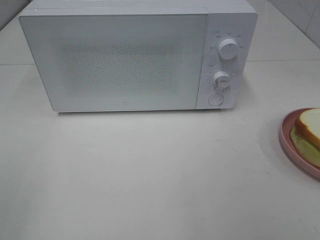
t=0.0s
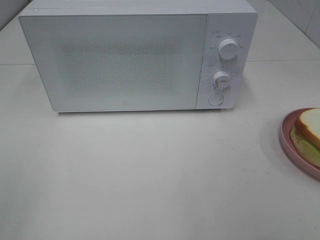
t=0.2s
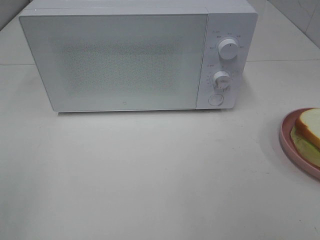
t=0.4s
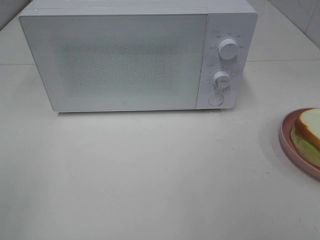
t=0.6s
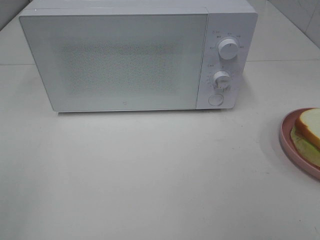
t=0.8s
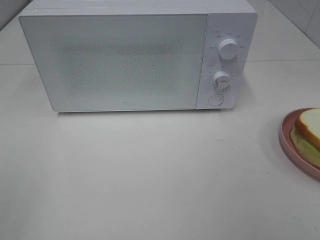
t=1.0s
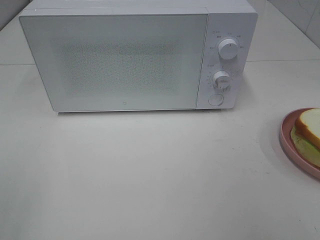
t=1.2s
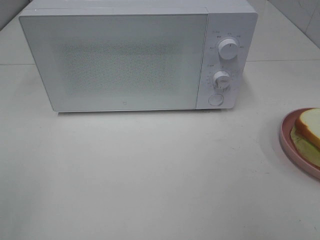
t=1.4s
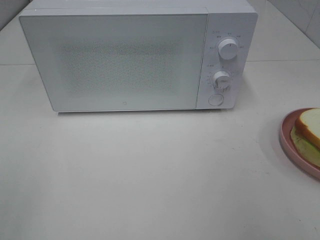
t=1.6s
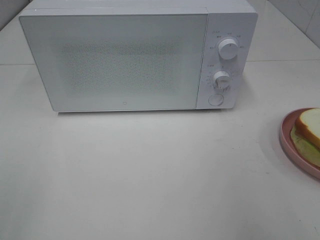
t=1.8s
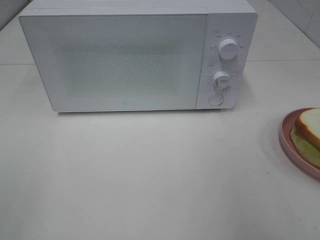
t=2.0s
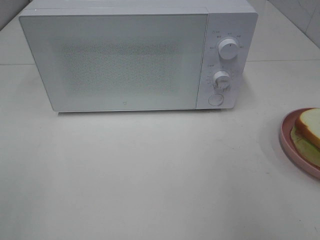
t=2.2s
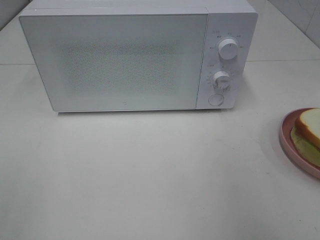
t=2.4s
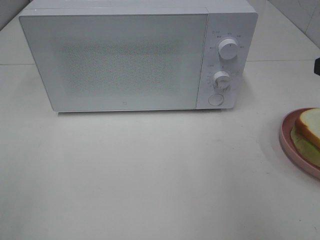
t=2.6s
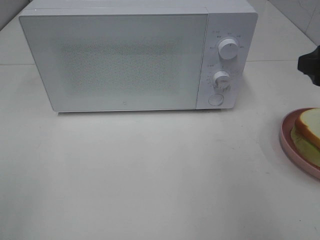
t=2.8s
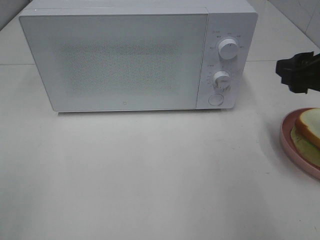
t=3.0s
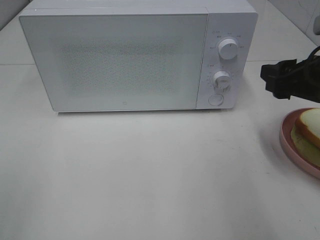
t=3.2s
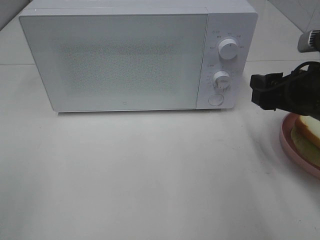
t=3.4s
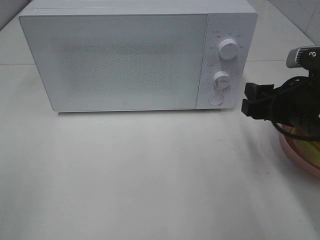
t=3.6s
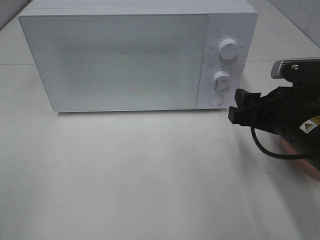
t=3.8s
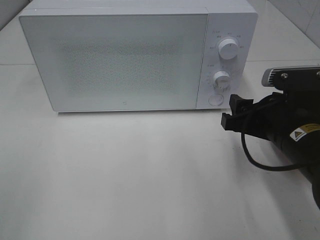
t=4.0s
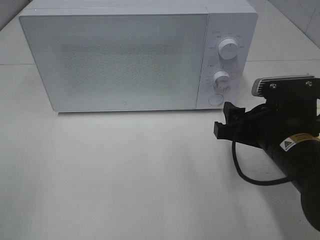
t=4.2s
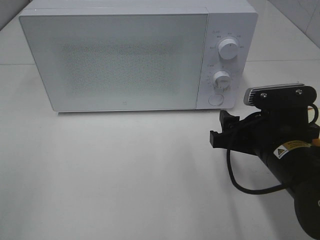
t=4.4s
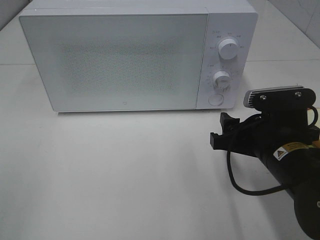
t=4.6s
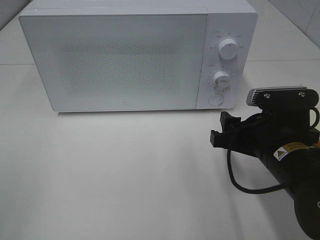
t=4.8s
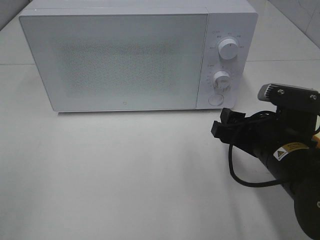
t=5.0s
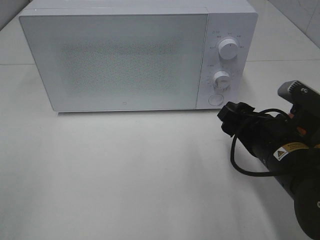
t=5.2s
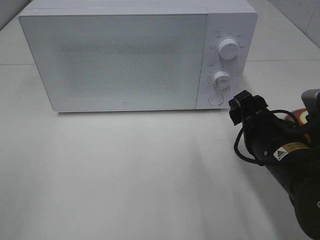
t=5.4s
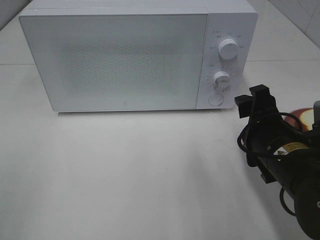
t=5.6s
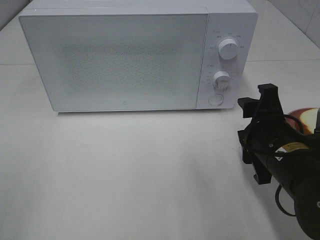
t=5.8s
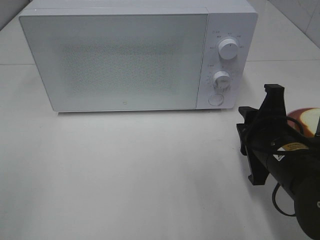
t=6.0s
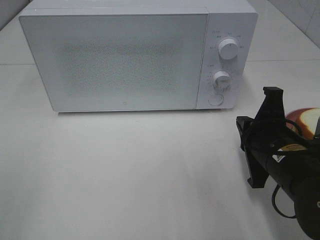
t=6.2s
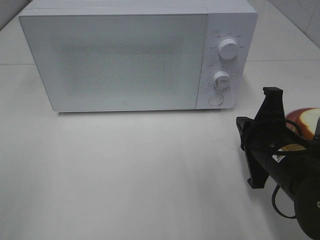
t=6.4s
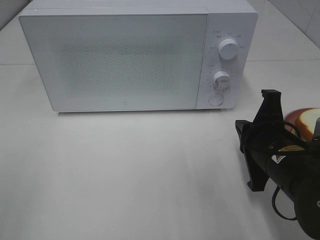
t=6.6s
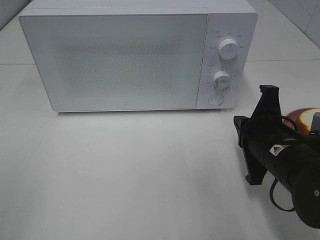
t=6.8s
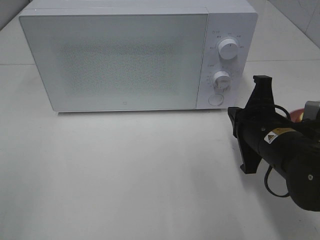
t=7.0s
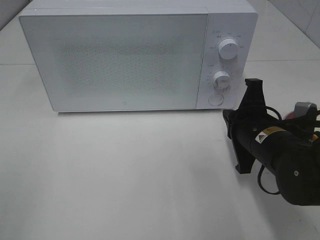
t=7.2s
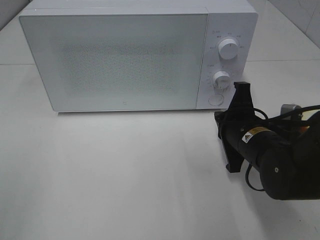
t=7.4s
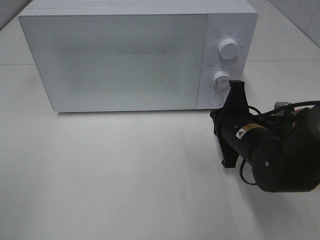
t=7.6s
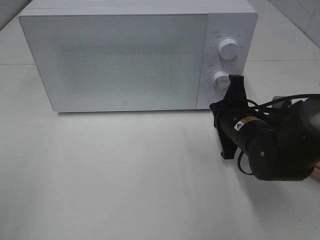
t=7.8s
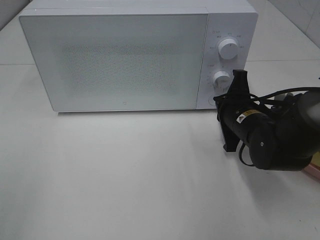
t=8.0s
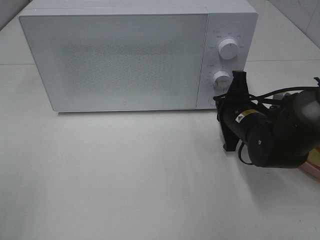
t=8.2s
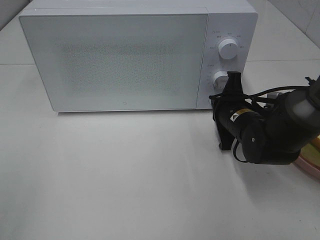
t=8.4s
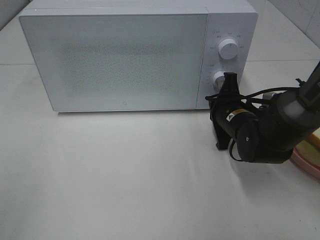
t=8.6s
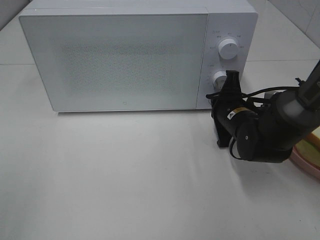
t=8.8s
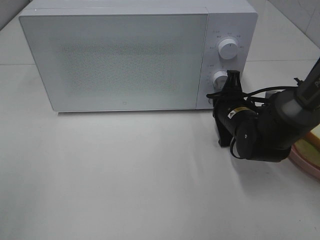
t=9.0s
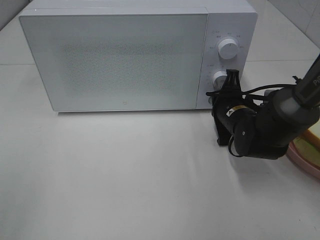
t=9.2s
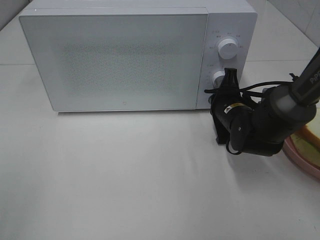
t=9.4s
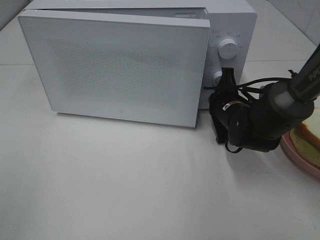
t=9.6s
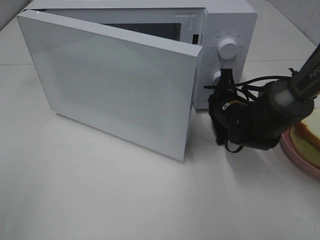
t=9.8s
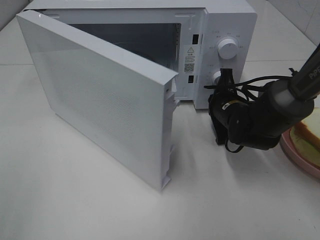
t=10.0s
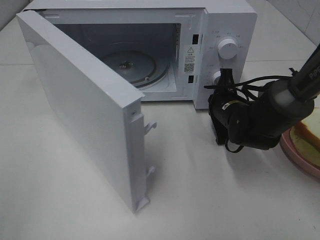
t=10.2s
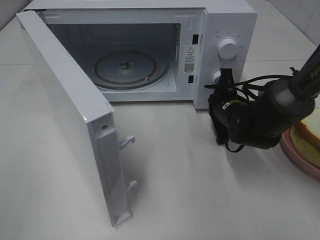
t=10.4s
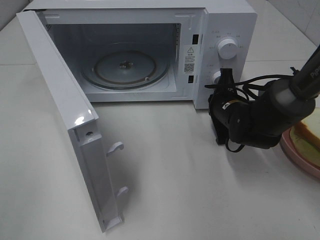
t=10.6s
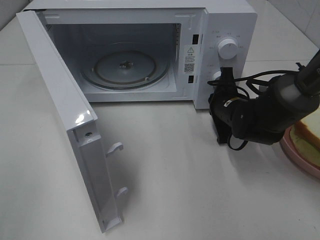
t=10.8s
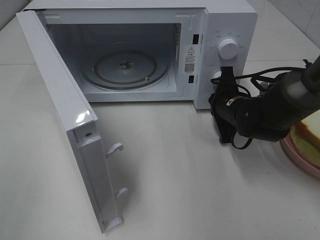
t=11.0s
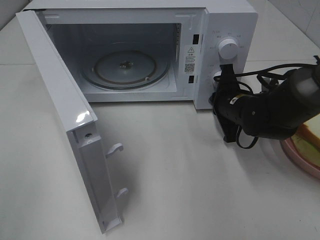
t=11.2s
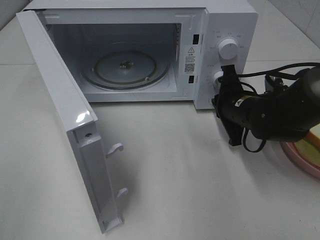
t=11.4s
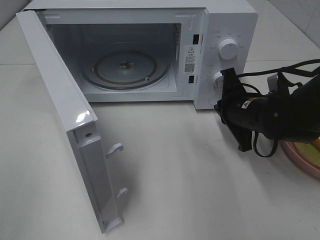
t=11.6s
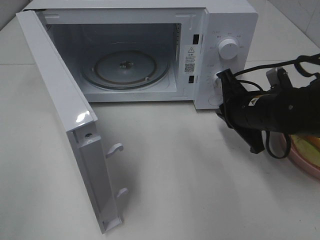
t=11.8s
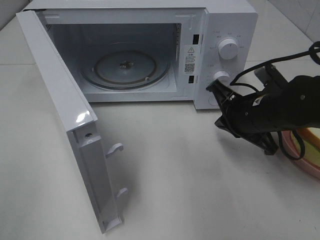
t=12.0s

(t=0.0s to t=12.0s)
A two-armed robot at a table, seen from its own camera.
Task of the whole recording: Heat Sandwich.
Step, t=0.0s - t=11.4s: Right hand: press the switch.
t=1.6s - t=3.0s: The right gripper goes roughly 15 cm forward and downward.
t=3.0s - t=4.4s: The right gripper travels downward and to the left by roughly 15 cm.
t=4.4s - t=6.0s: The right gripper closes.
t=6.0s - t=7.6s: The right gripper travels forward by approximately 5 cm.
t=7.6s - t=9.0s: The right gripper goes about 5 cm forward.
t=10.4s - t=12.0s: The right gripper shifts some 10 cm backward and upward.

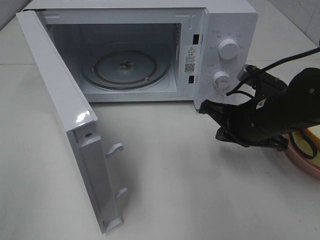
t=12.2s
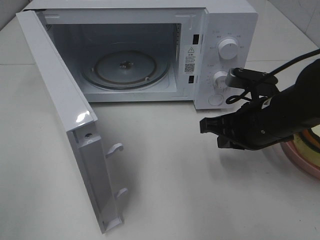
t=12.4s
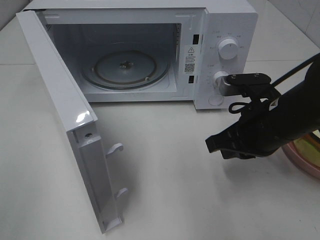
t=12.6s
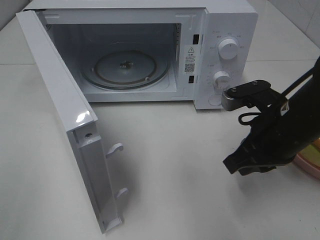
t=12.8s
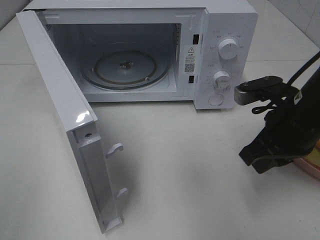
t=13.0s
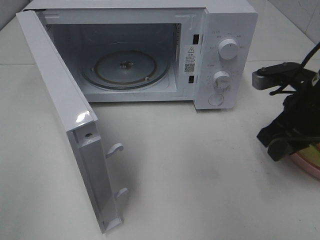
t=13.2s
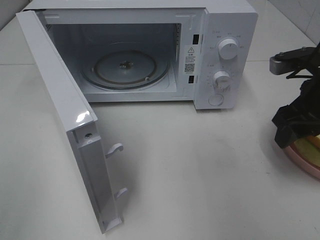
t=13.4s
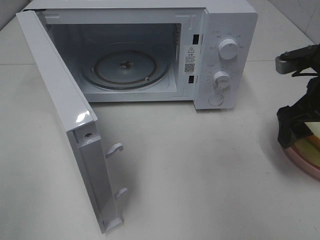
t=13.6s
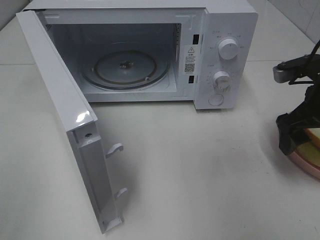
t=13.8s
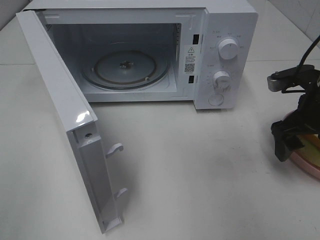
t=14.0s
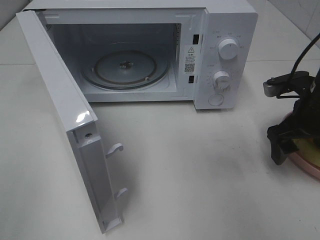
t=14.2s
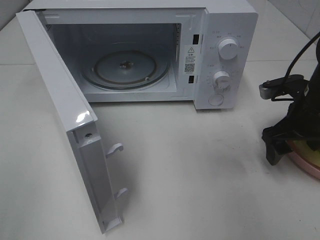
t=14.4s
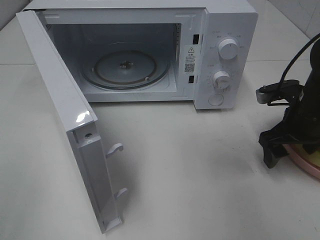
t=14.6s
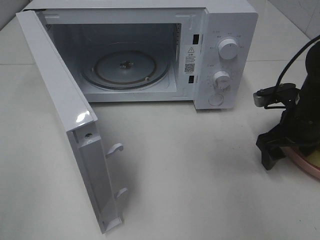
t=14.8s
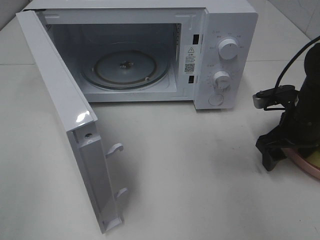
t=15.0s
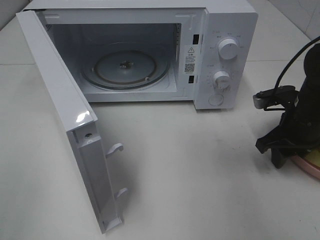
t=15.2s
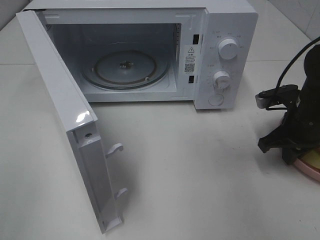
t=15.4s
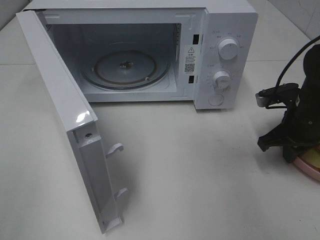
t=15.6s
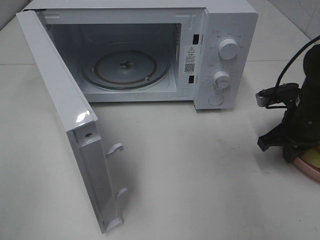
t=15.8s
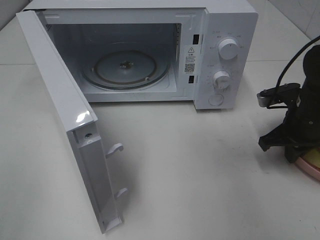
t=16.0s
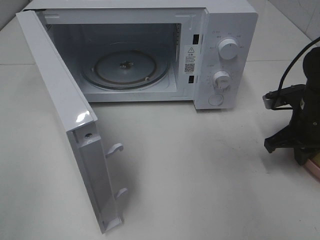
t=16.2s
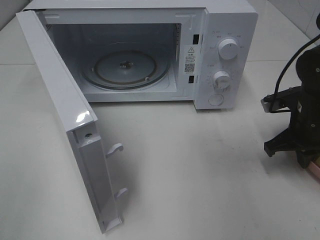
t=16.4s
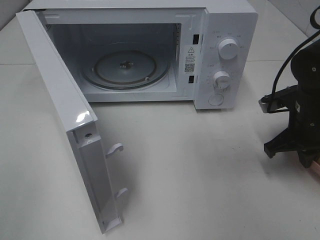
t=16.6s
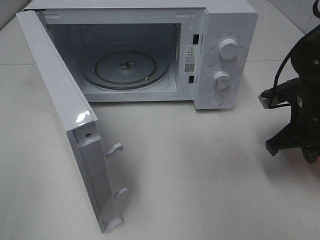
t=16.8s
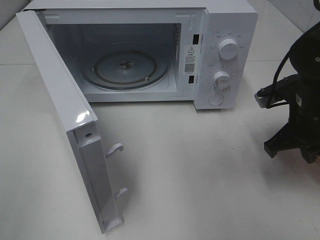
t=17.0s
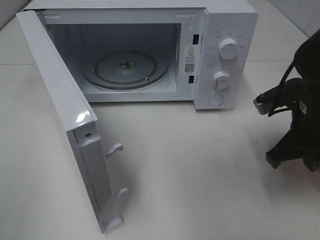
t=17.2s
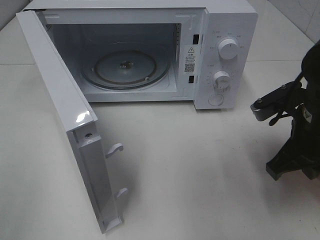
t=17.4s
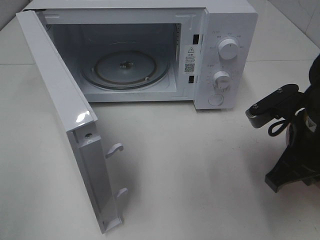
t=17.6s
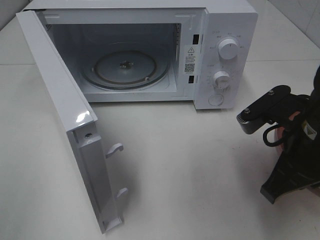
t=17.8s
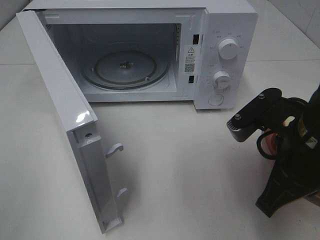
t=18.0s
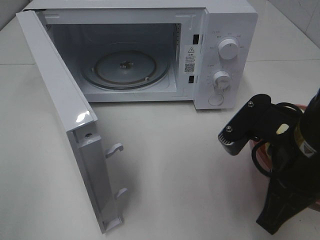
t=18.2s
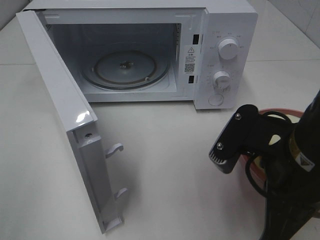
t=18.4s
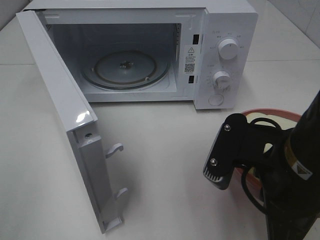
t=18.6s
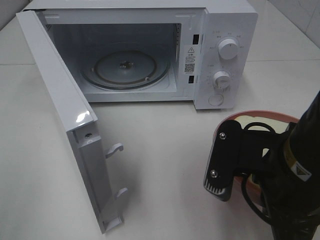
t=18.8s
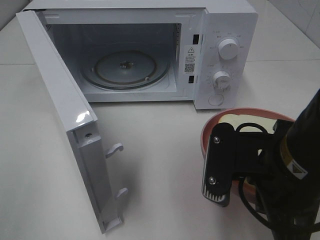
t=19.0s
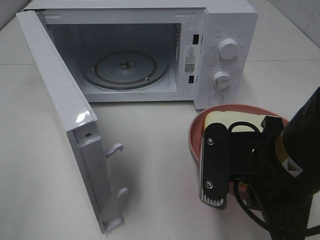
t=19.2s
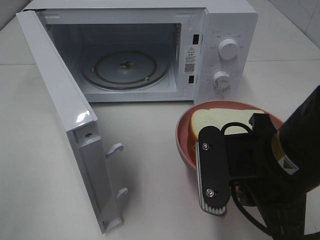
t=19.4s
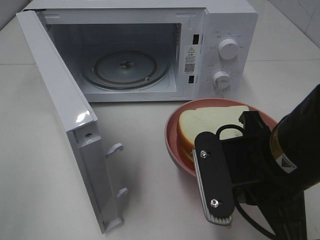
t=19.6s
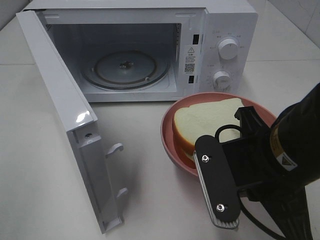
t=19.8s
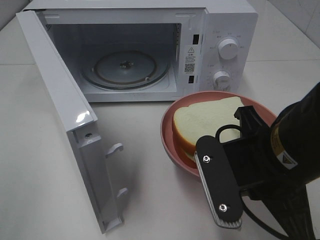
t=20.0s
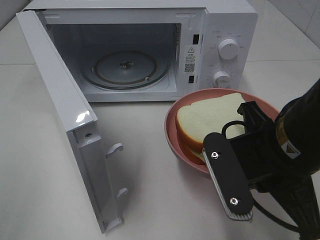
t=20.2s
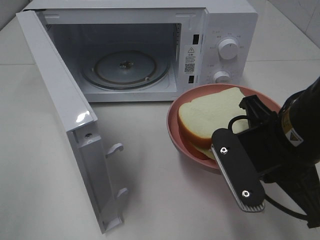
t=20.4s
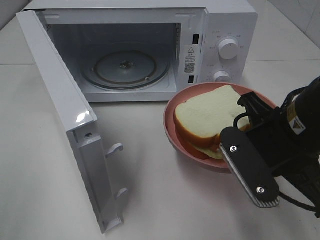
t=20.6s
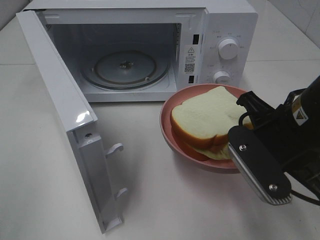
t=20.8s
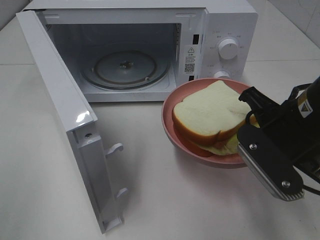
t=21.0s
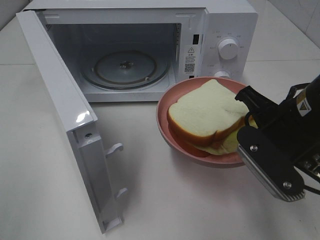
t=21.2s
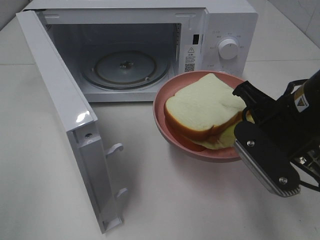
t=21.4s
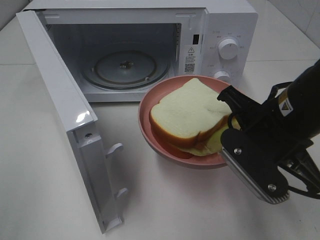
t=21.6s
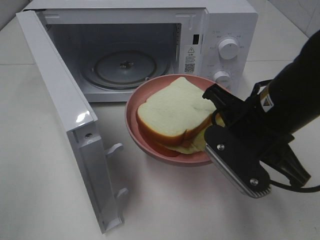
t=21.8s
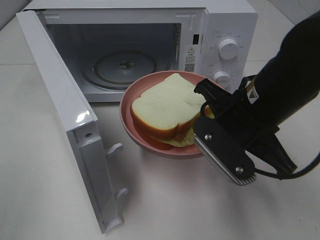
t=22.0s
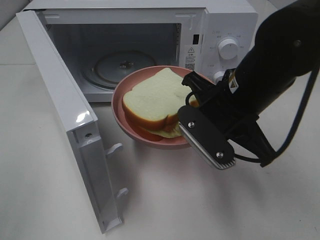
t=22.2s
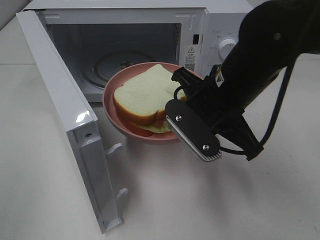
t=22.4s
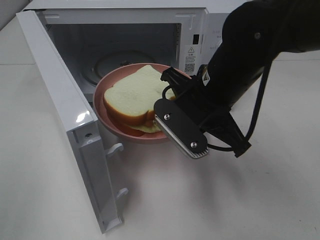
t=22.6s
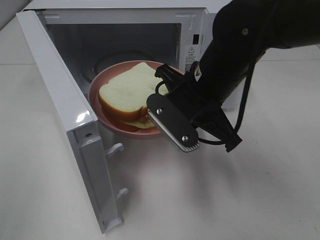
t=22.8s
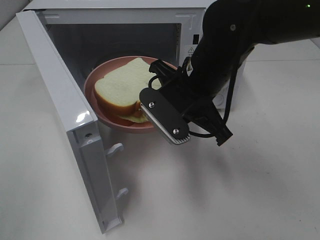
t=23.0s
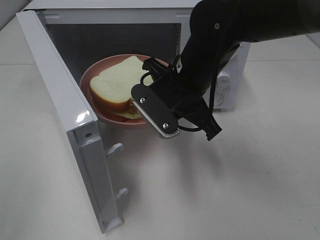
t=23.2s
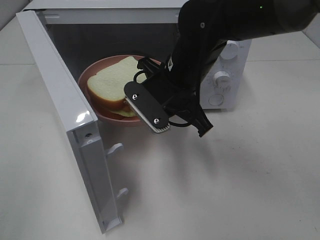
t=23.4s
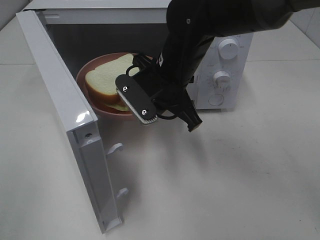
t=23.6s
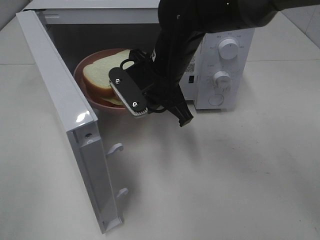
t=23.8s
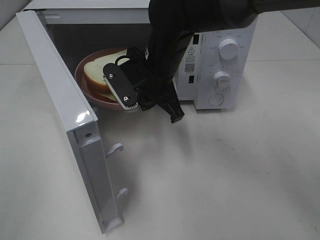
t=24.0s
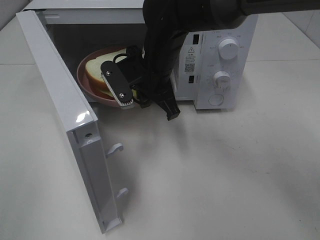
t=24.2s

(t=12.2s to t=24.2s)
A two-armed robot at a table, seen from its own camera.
Task of the whole recording: Heat Sandwich.
Step, t=12.2s - t=16.2s: Right hand: grab the plate with the sandwich.
t=12.2s - t=13.8s: The right gripper goes some 10 cm to the right, and opens its fingers.
t=13.8s - t=15.2s: The right gripper shifts some 5 cm downward, and closes its fingers.
t=15.2s - t=16.6s: The right gripper closes its fingers.
t=16.6s - t=18.2s: The right gripper goes about 20 cm backward, to the left and upward.
t=19.8s - t=21.2s: The right gripper goes roughly 5 cm forward.
t=21.2s - t=22.6s: The right gripper is displaced to the left and forward by about 10 cm.
t=22.6s - t=24.2s: The right gripper shifts roughly 15 cm forward and to the left.
